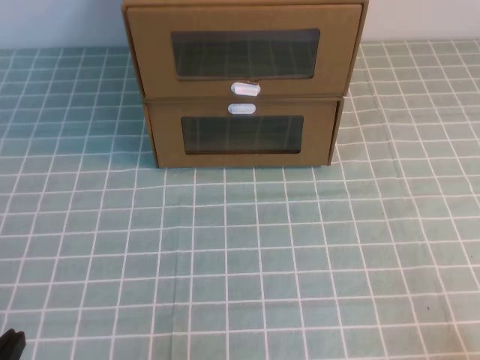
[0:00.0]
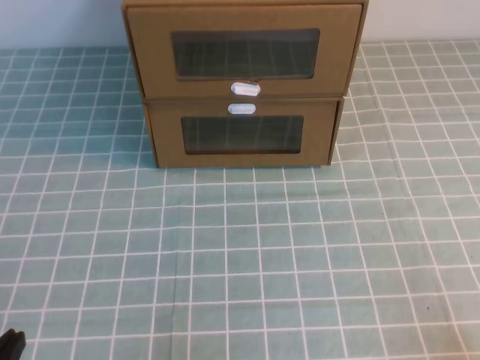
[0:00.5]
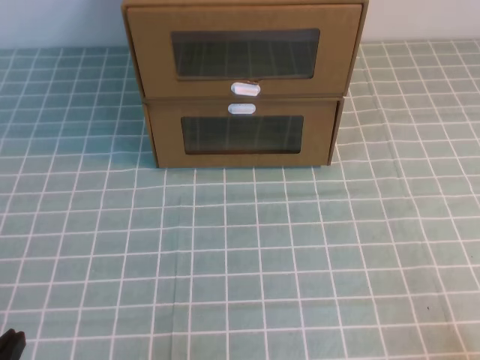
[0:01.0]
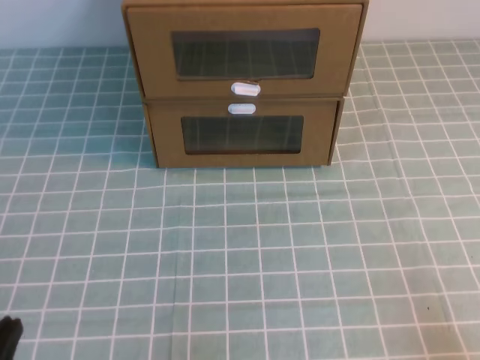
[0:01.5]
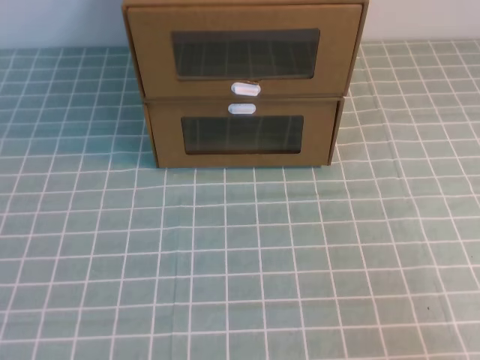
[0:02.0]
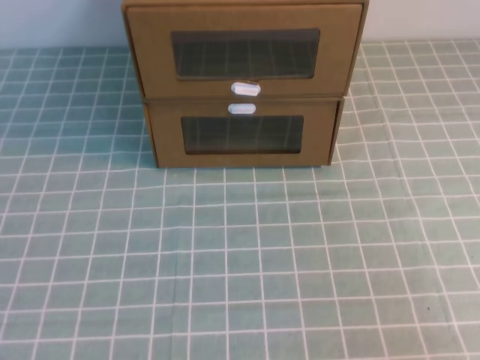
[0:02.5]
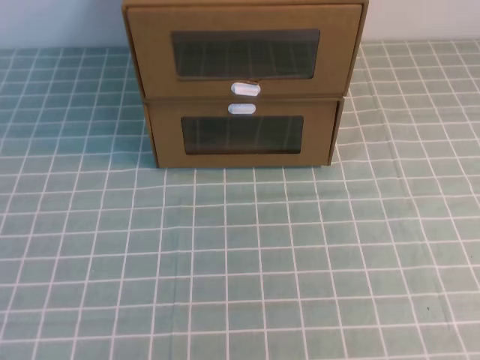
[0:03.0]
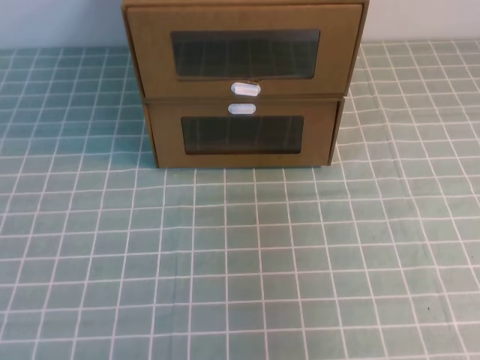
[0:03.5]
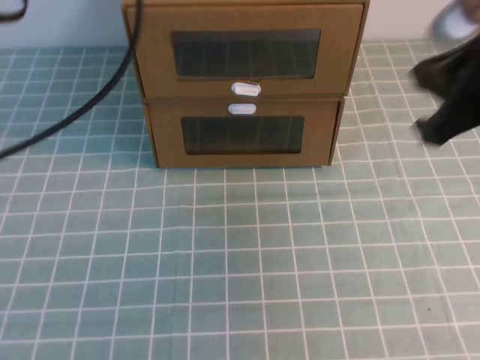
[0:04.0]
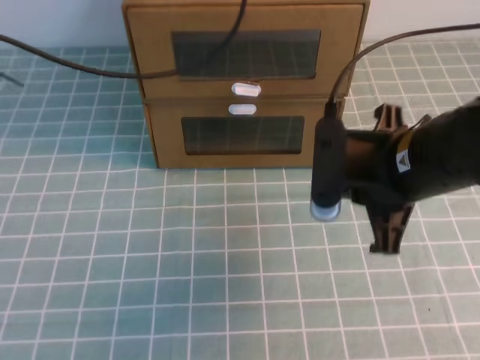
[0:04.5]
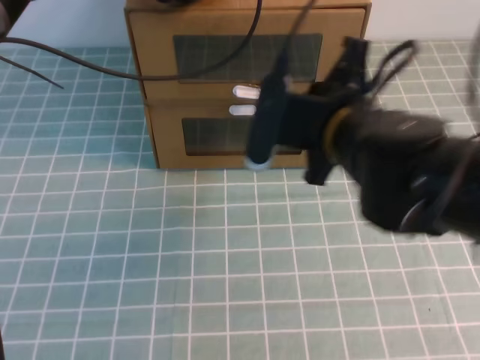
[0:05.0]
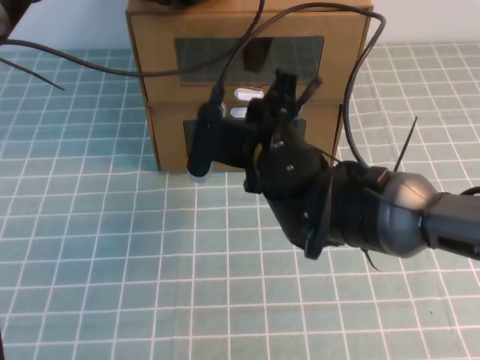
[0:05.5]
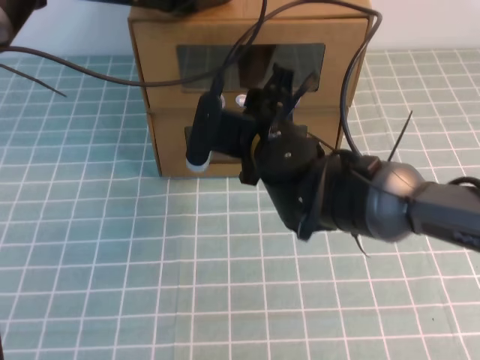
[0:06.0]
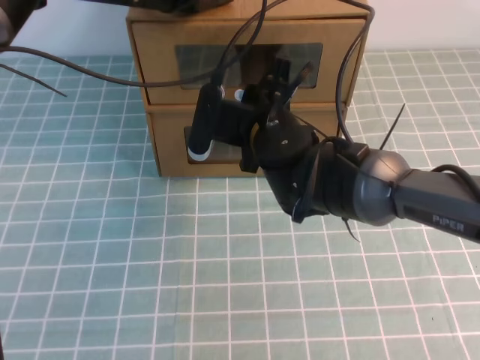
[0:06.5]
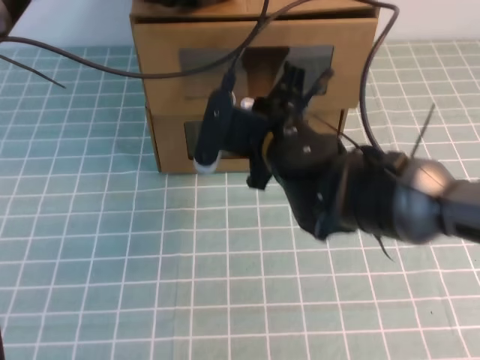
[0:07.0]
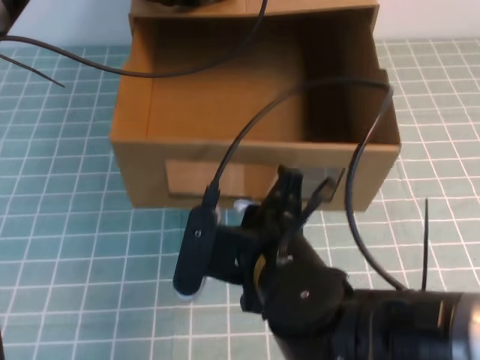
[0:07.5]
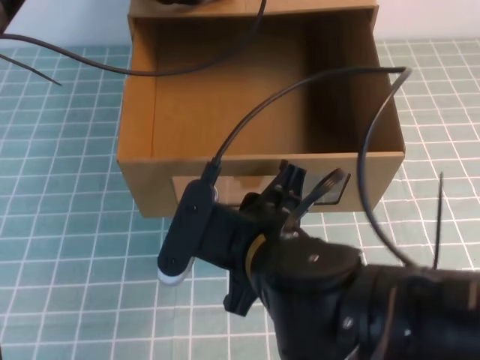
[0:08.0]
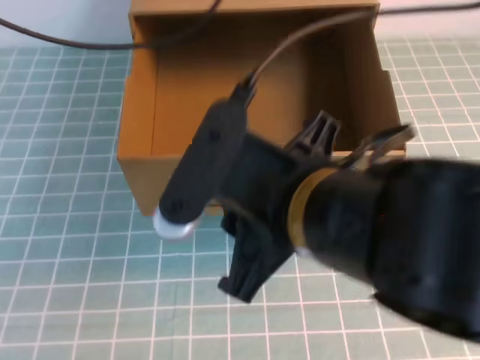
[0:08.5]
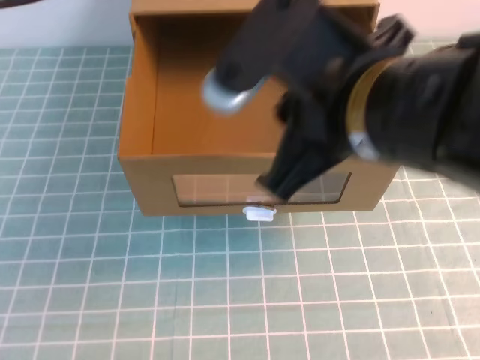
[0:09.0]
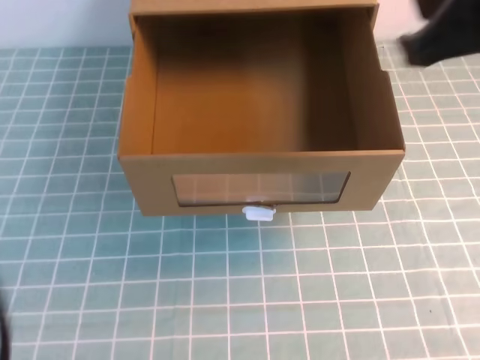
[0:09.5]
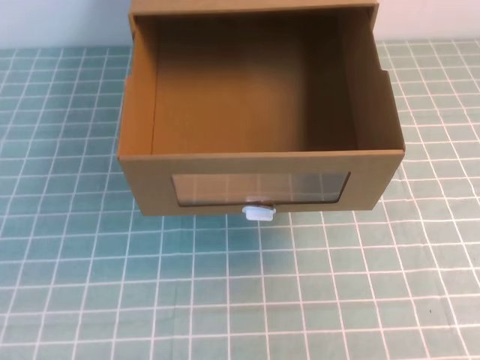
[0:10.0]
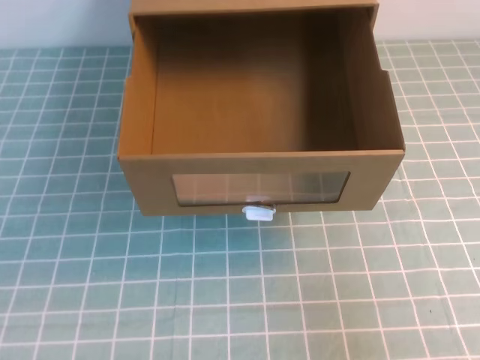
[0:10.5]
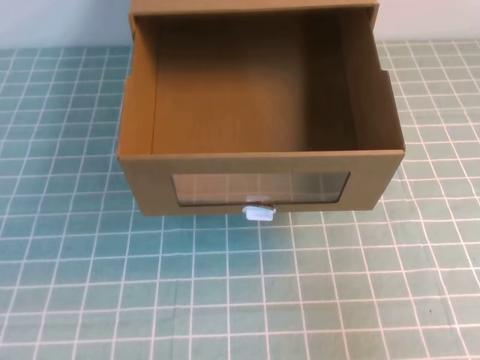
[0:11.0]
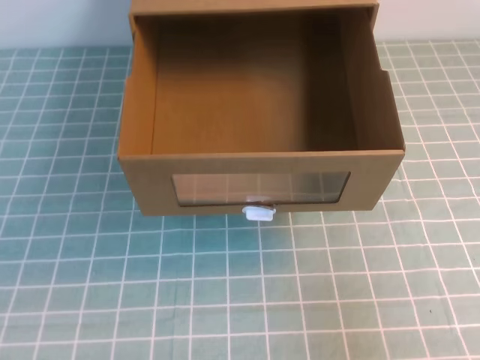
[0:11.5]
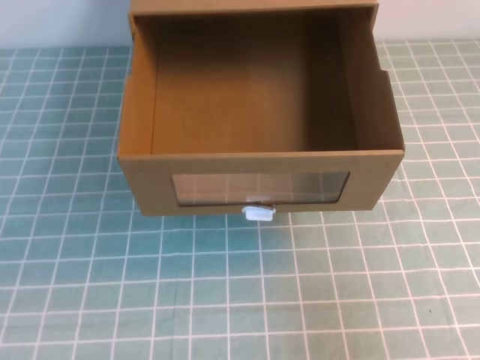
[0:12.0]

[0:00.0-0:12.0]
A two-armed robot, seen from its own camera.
Task of the whole recording: open the shoebox on the cyan tablecloth.
2.0 to 4.0 s: The left gripper goes some 30 cm upward and forward; the right gripper is displaced forward, upward and to the left by roughly 25 cm.
4.0 to 6.0 s: The right gripper moves to the left, downward and forward, about 25 cm, and opens its fingers. The left gripper moves forward, to the right and downward, about 20 cm.
6.0 to 8.0 s: The right gripper heads backward, covering some 15 cm, and closes its fingers.
8.0 to 10.0 s: The right gripper travels to the right and upward by some 30 cm, and closes; the left gripper moves backward, roughly 40 cm.
10.0 to 12.0 s: The right gripper shifts roughly 10 cm downward.

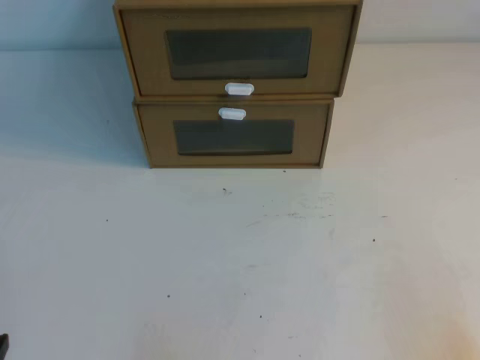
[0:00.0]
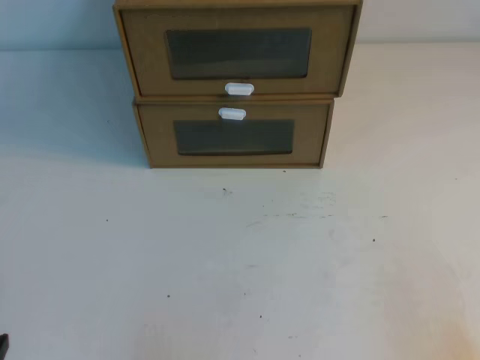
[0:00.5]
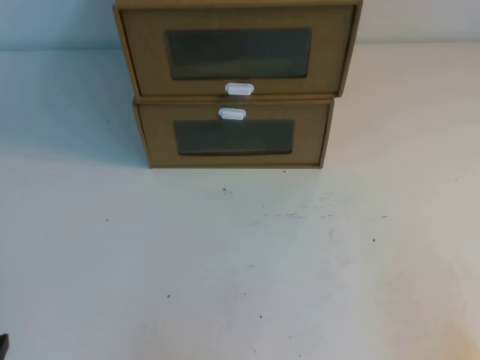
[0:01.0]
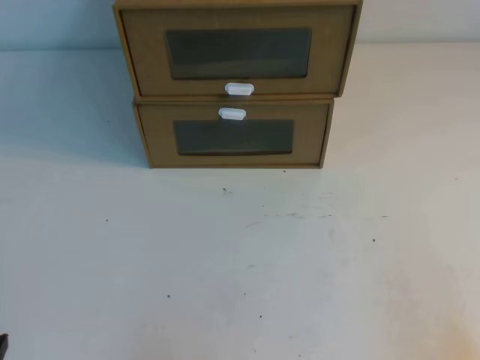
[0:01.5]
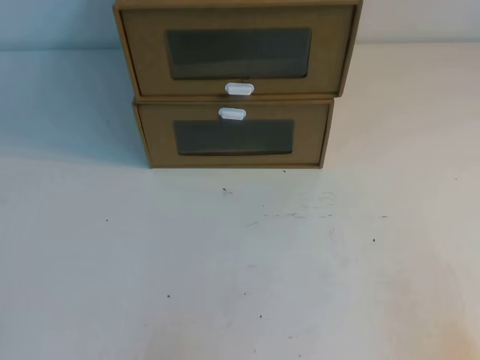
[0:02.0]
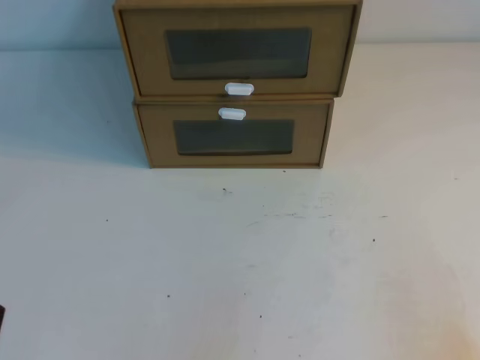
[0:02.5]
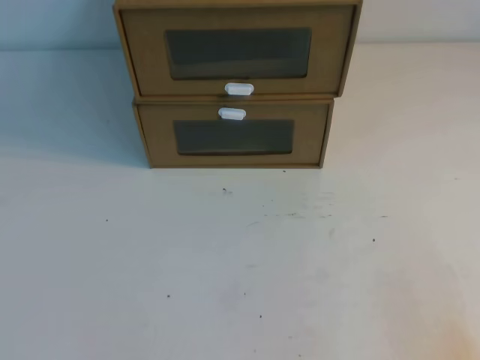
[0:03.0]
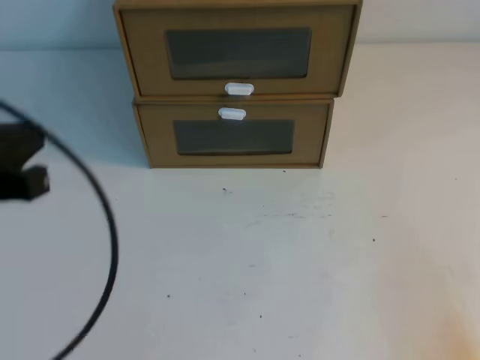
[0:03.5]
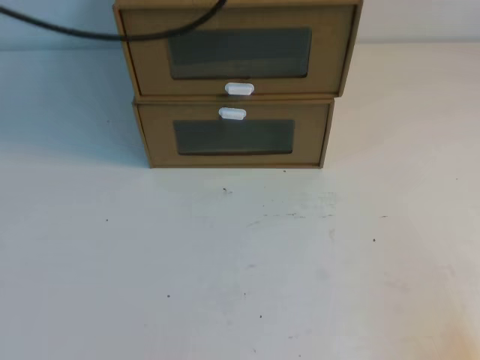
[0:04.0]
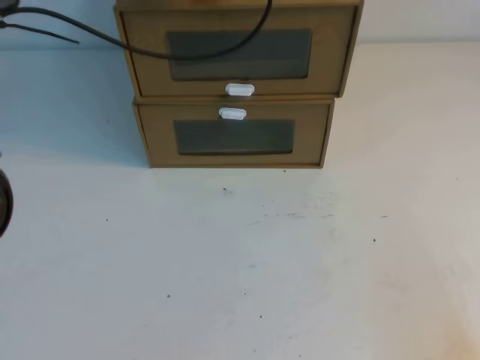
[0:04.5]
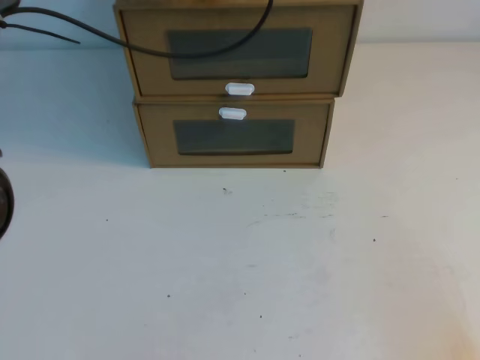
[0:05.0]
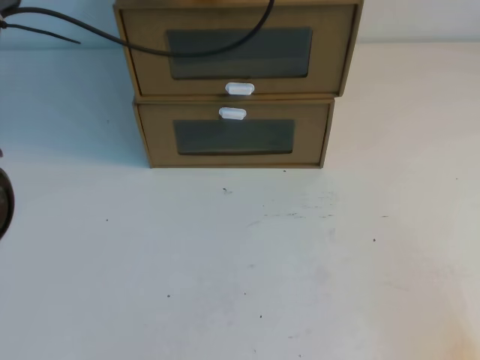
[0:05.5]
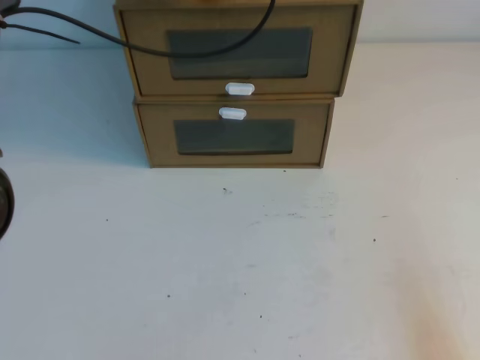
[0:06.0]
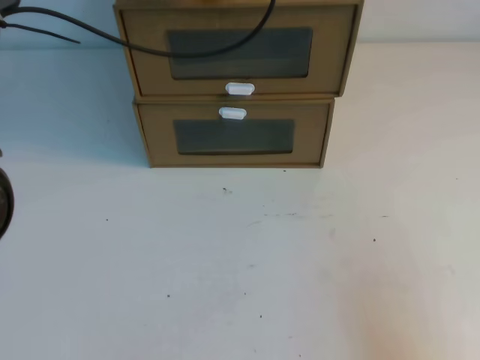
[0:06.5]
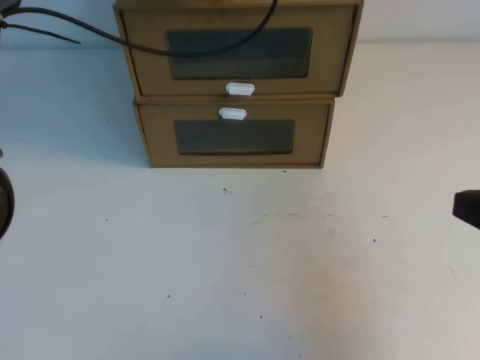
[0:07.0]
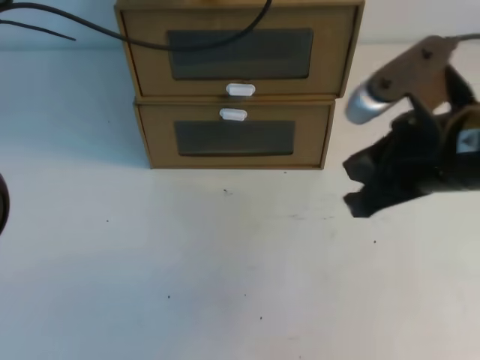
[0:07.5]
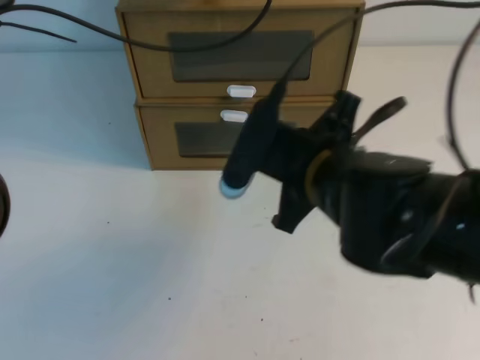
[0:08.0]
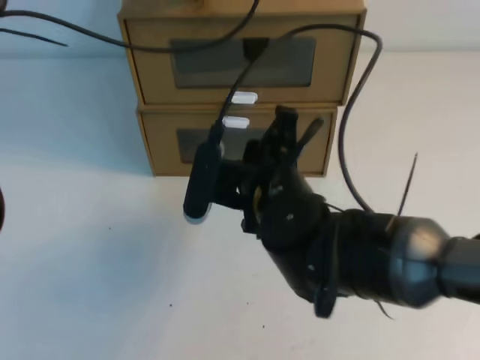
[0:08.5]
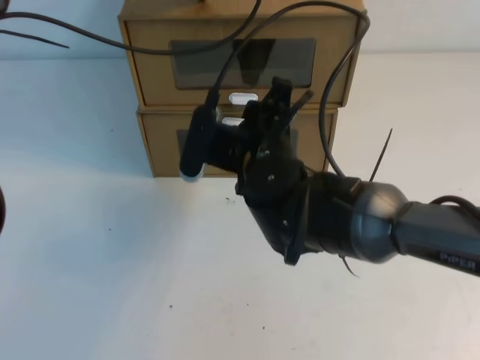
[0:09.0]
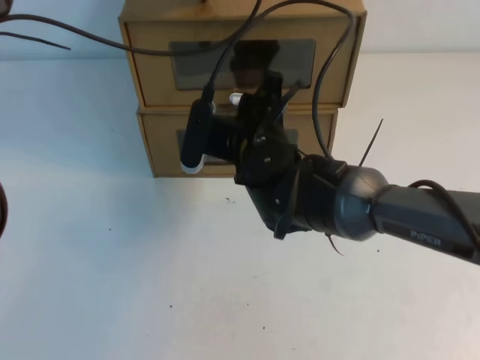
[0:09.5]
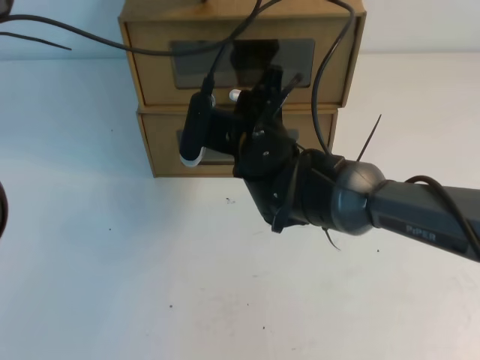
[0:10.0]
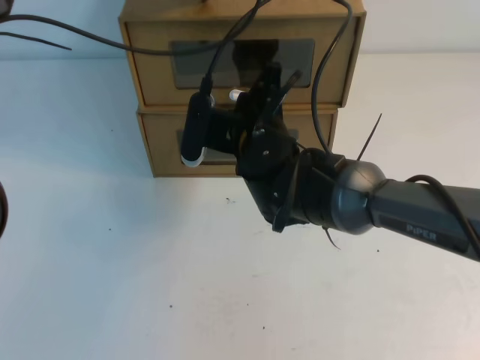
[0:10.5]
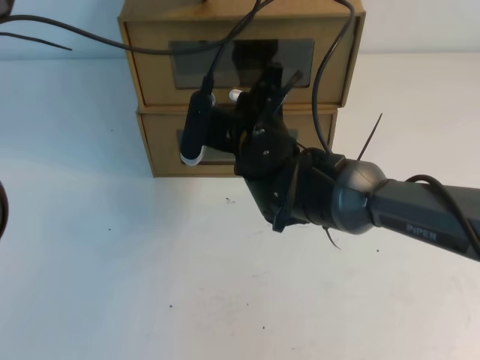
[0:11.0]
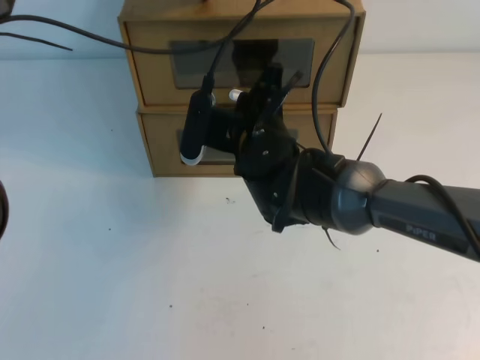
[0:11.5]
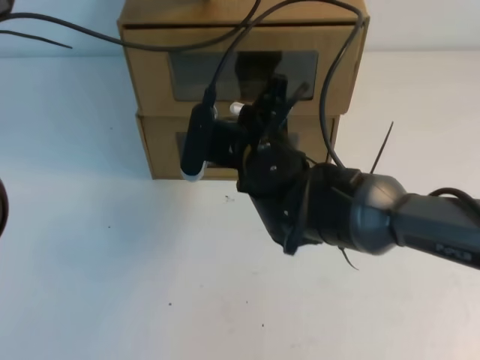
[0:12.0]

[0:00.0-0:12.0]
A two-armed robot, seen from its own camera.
Task of the whole recording: open the shoebox on the table.
2.0 to 4.0 s: The left gripper moves upward and forward, approximately 40 cm.
4.0 to 6.0 s: The left gripper heads forward and downward, covering about 15 cm.
6.0 to 8.0 s: The right gripper shifts roughly 30 cm to the left, forward and upward.
8.0 to 10.0 s: The right gripper travels forward, to the left and downward by about 15 cm, and opens up.
10.0 to 12.0 s: The right gripper closes its fingers.

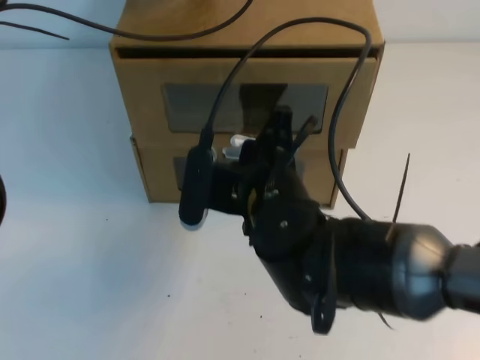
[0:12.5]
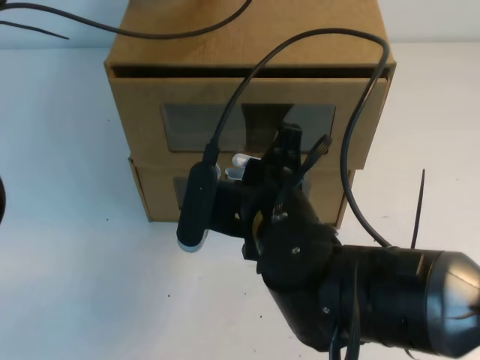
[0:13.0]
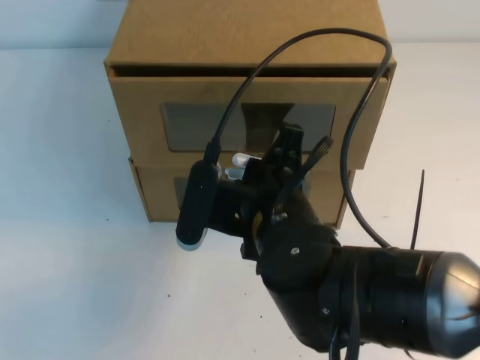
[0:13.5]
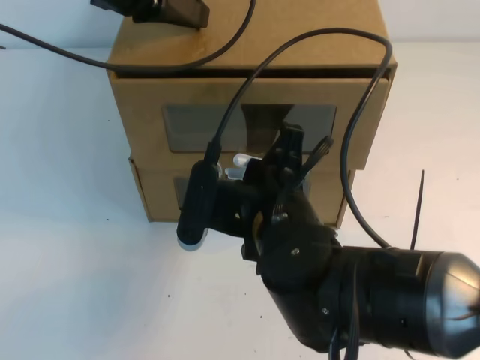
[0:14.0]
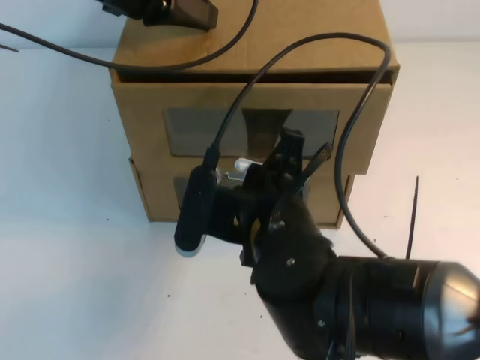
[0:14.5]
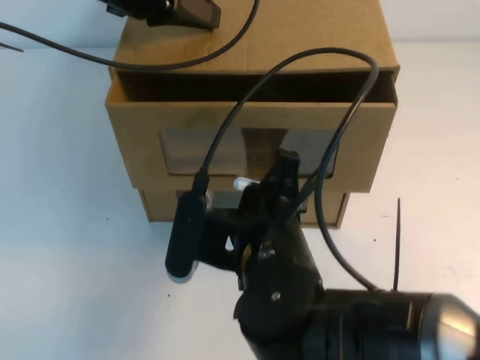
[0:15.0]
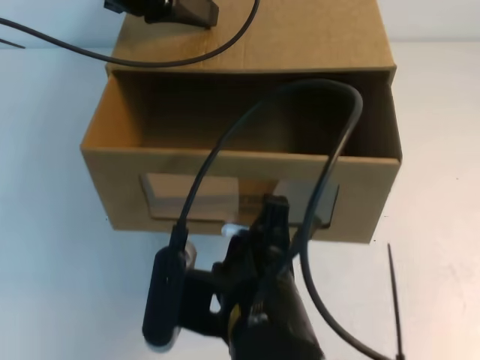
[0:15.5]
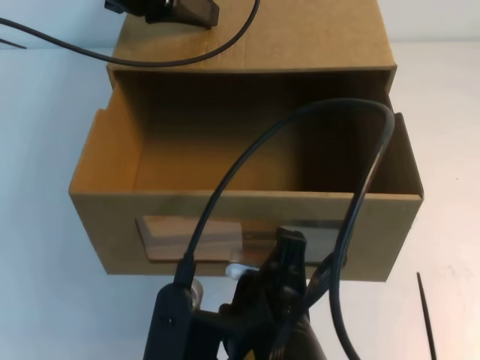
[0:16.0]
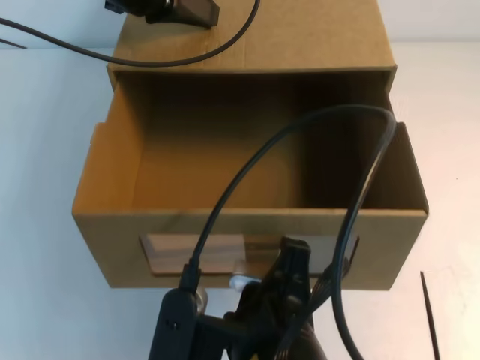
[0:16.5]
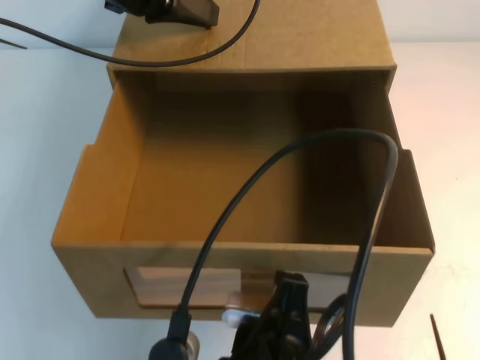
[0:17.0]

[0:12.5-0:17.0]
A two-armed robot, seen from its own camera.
Task of the whole recording: open the shoebox on the table.
12.5 to 14.5 s: The left gripper moves backward, roughly 5 cm.
14.5 to 17.0 s: The right gripper moves backward, some 15 cm.
